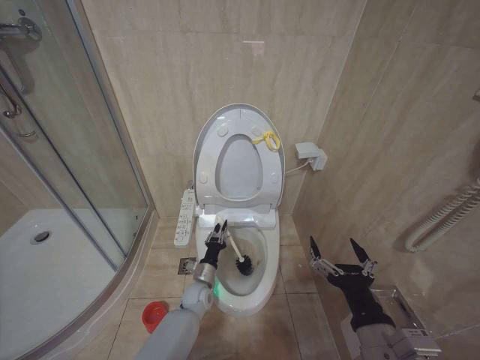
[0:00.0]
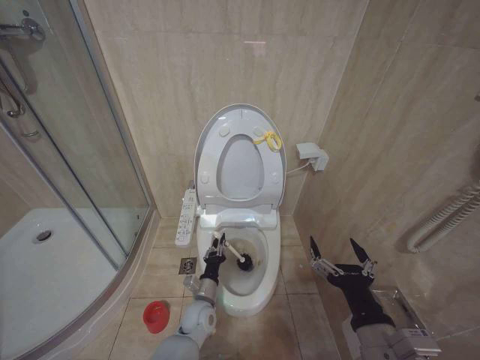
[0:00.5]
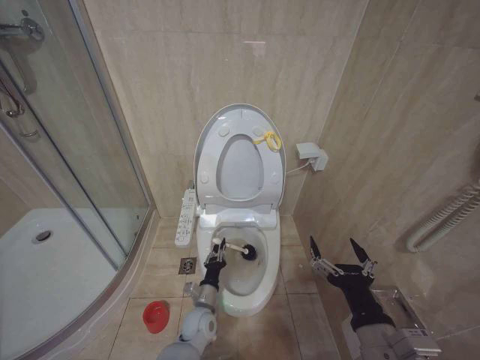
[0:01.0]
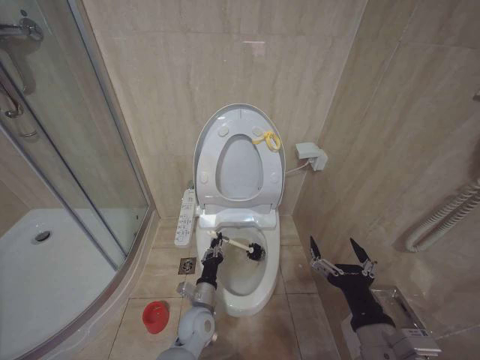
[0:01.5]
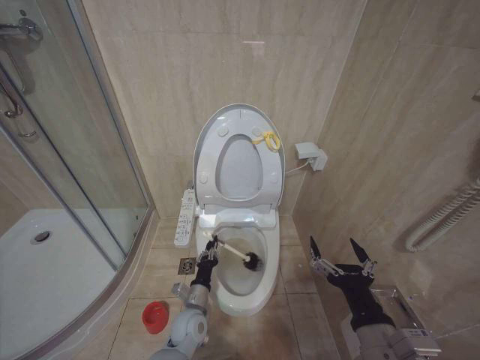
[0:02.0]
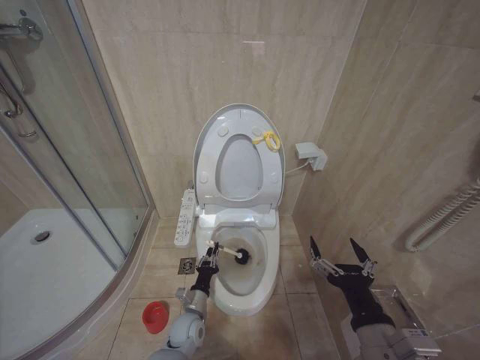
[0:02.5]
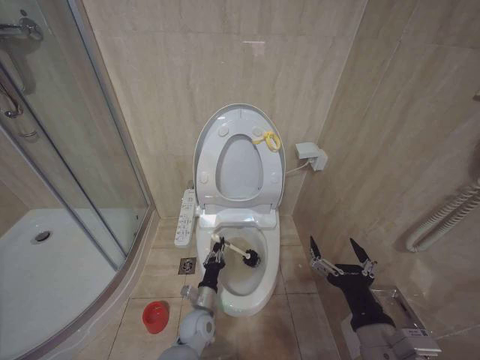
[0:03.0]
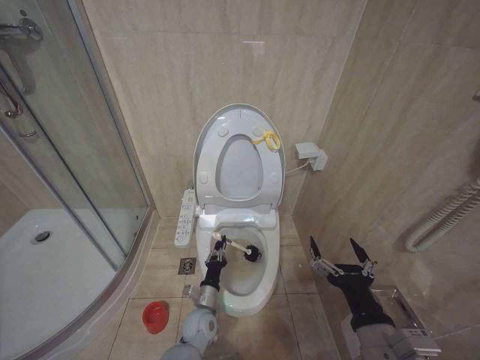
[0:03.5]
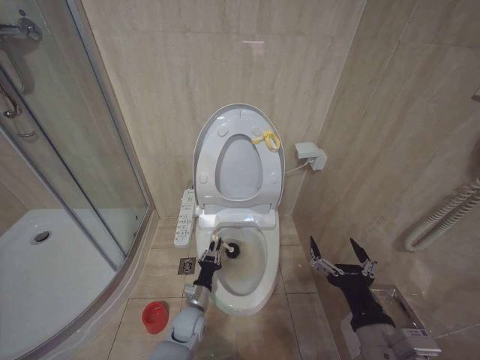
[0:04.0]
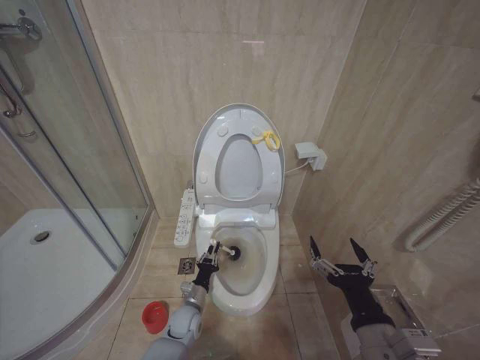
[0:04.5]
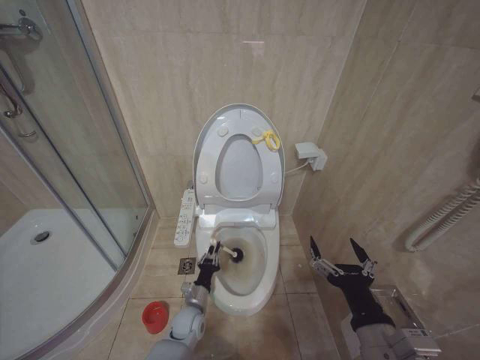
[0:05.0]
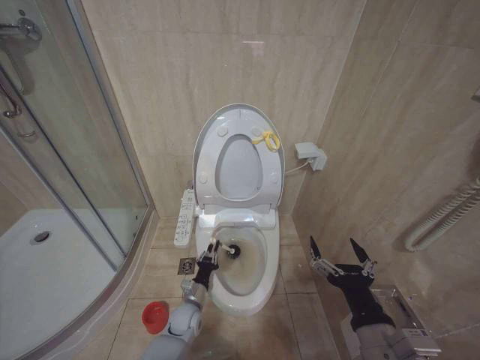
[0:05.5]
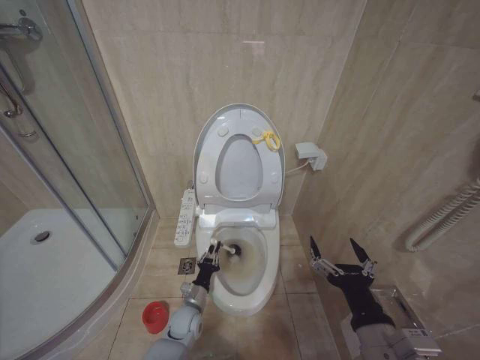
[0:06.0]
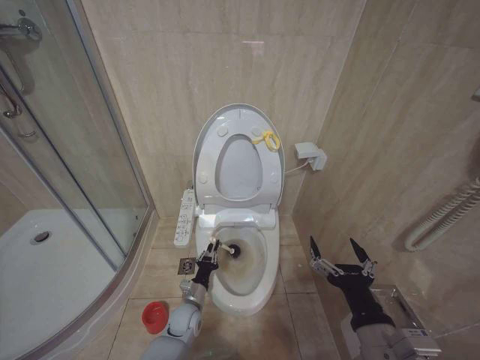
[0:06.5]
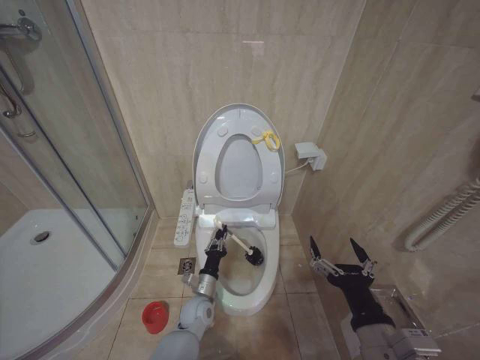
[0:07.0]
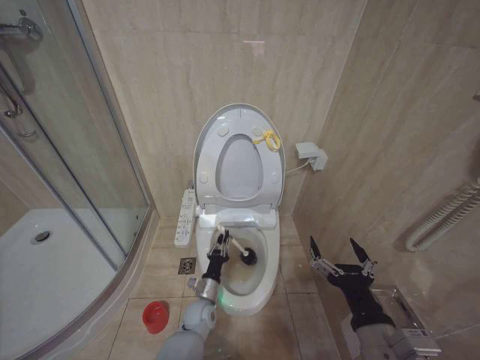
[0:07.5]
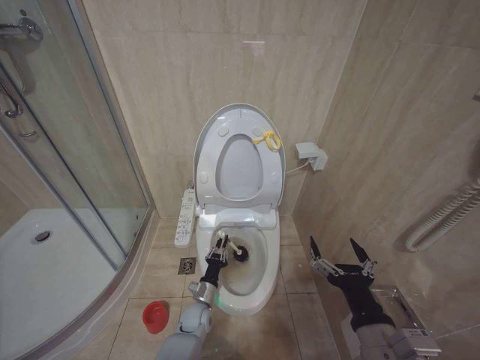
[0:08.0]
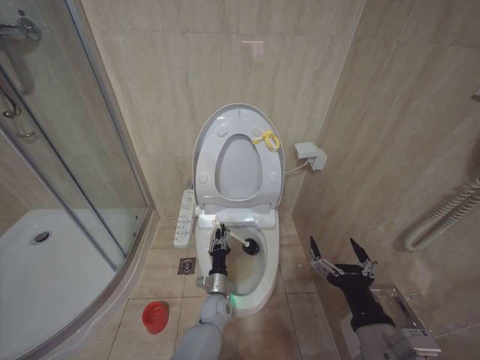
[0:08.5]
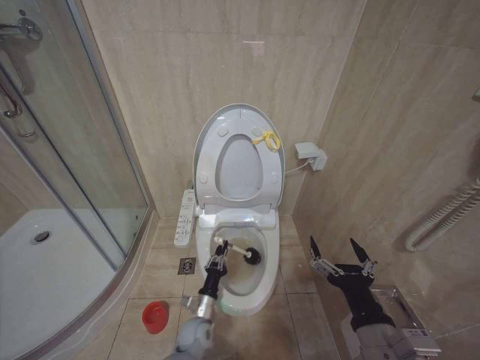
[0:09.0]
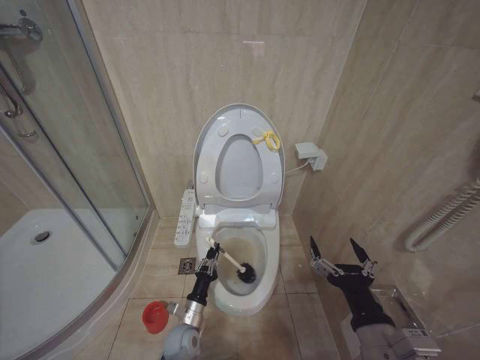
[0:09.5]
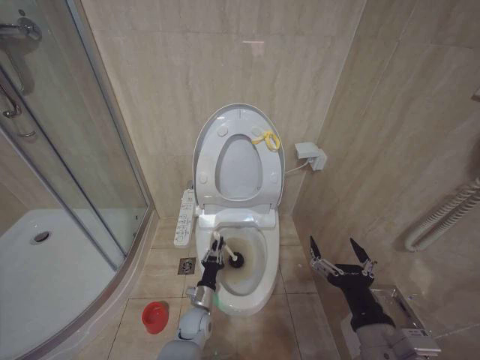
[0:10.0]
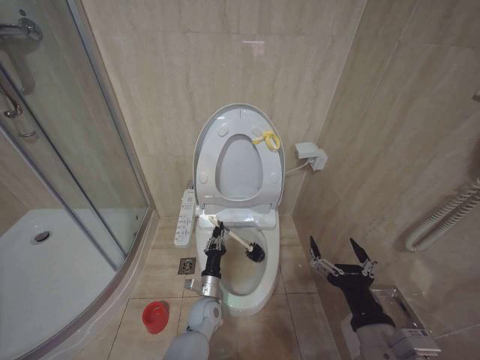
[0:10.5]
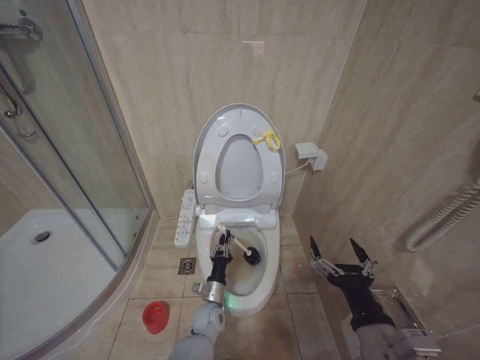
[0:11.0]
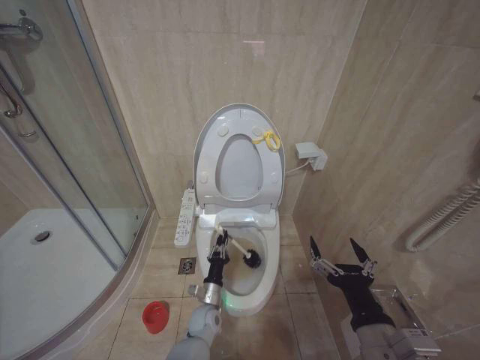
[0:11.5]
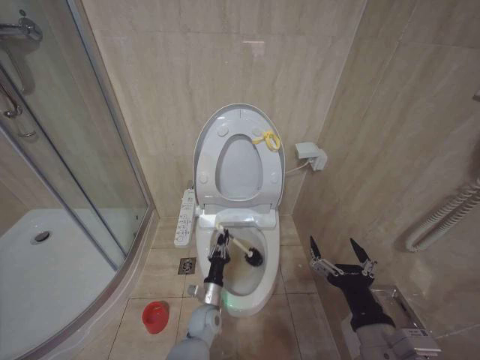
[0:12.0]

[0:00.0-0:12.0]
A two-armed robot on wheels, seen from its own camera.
Task of the whole recording: Open the toilet lid, clean the toilet bowl with a toilet brush, close the toilet lid, and flush.
0:00.0 to 0:02.0: The left gripper heads backward, covering approximately 10 cm.
0:08.0 to 0:10.0: The left gripper goes to the right and returns, approximately 5 cm each way.

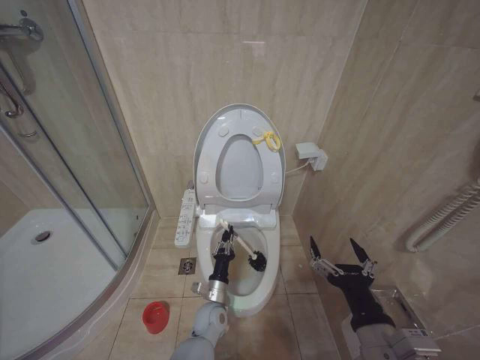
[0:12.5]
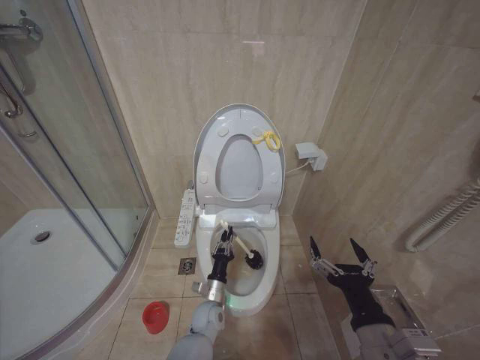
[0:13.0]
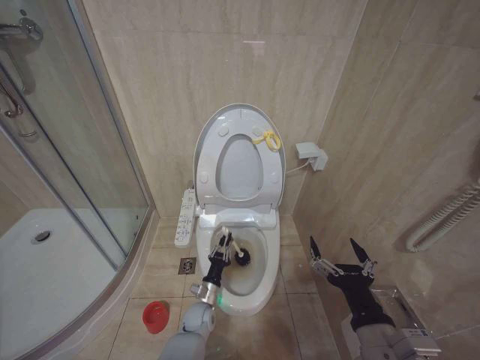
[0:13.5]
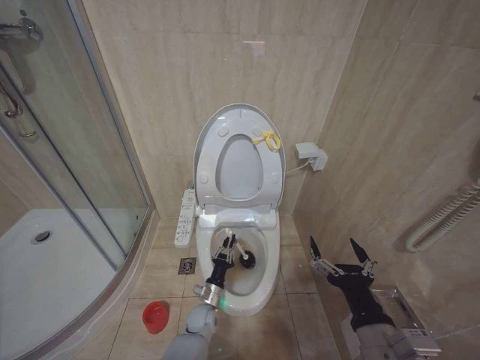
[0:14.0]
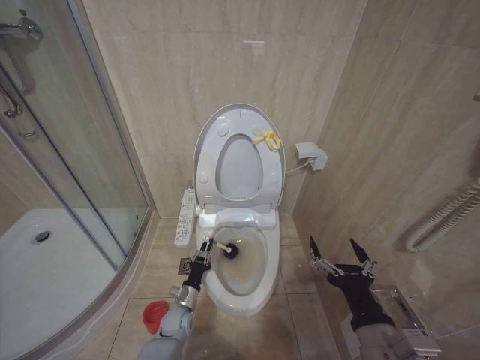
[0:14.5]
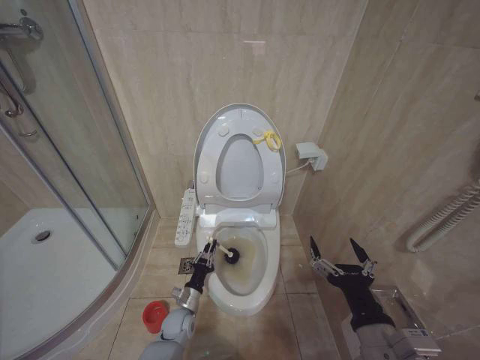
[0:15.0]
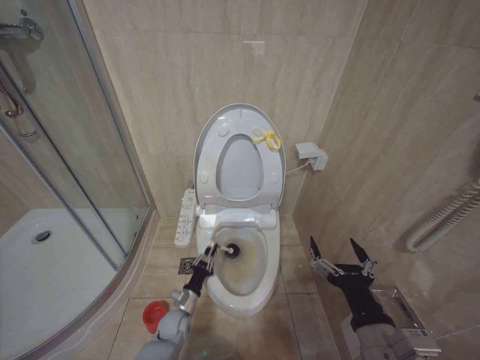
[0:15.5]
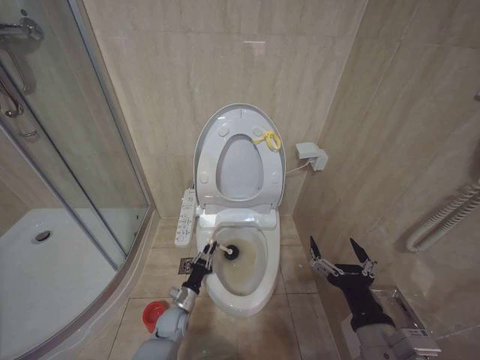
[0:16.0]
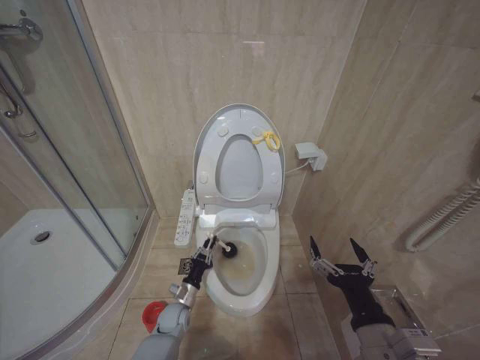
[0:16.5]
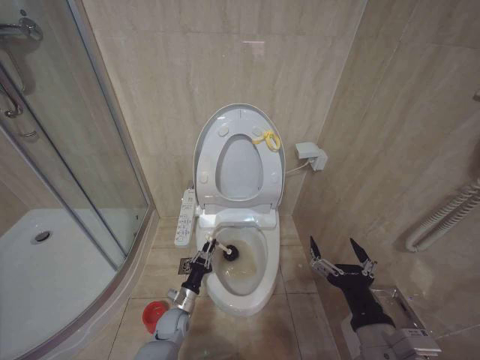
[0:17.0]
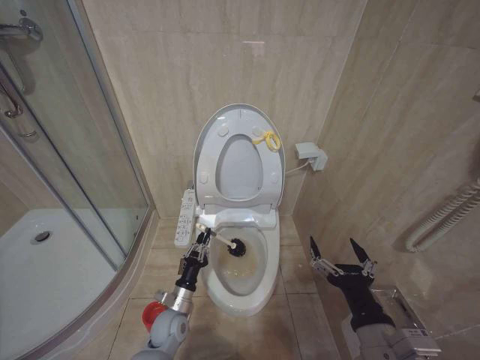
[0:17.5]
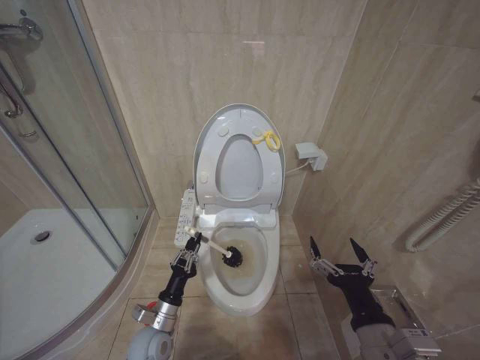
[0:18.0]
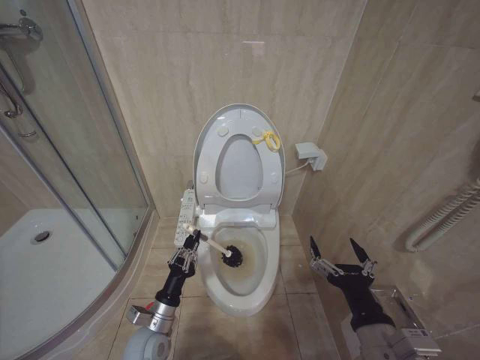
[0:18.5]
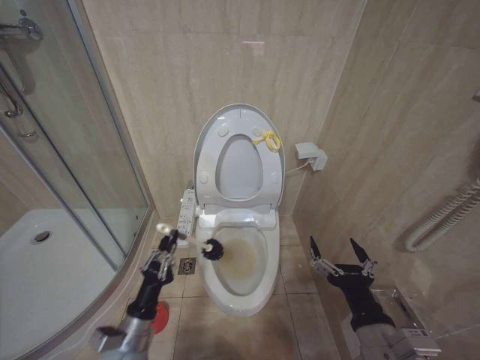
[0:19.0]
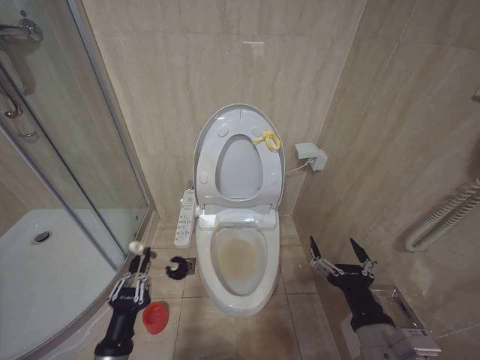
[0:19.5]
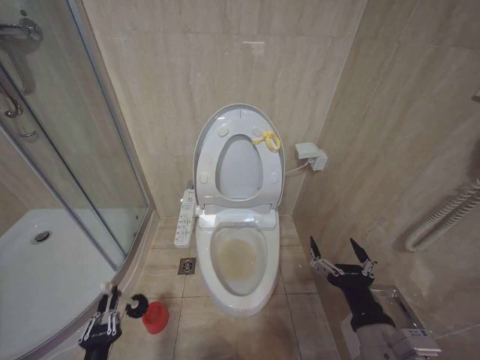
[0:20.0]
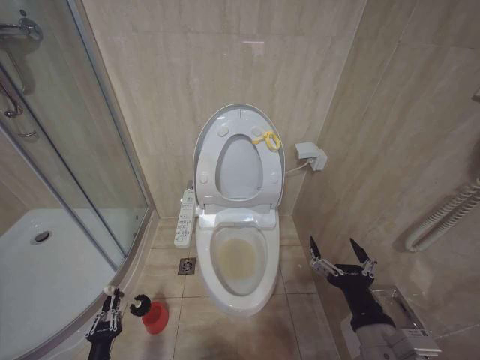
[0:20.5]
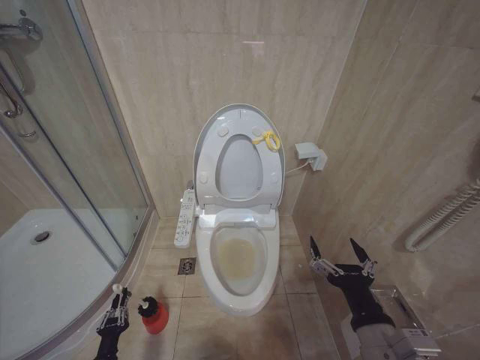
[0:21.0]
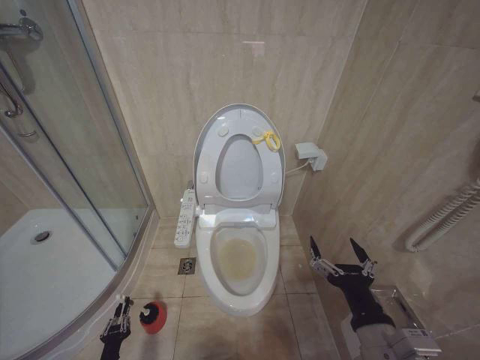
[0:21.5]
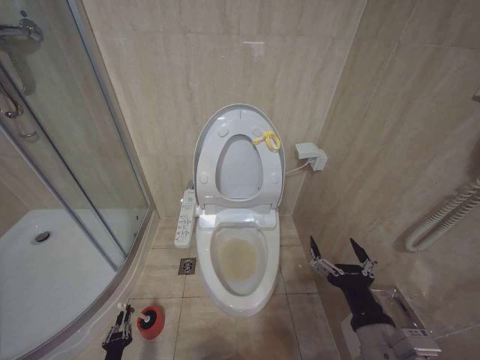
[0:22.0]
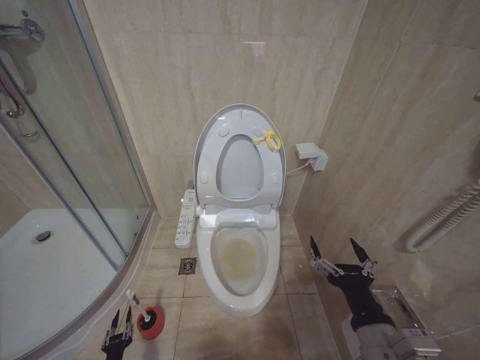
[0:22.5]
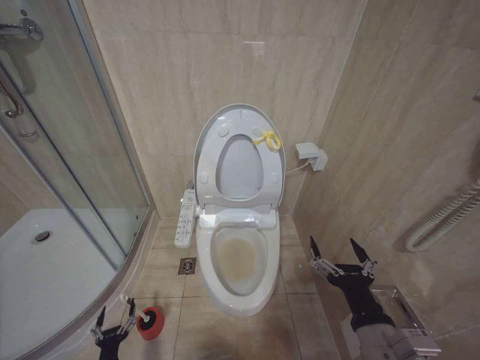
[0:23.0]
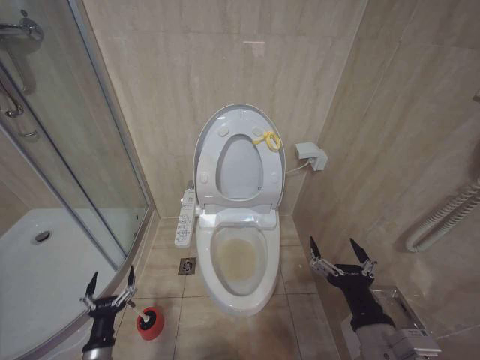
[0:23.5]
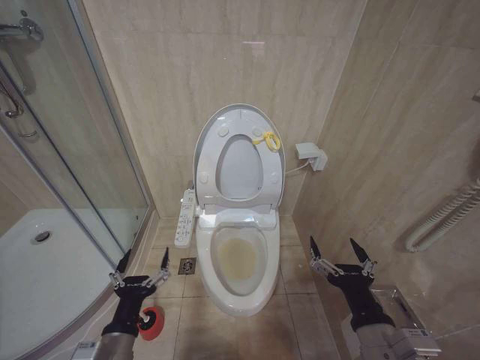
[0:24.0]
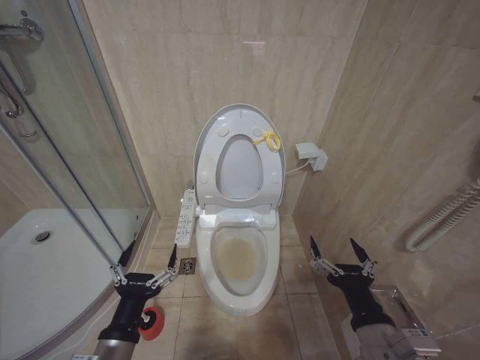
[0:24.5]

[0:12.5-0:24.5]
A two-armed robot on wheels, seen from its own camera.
Task of the whole recording: Open the toilet lid, clean the toilet bowl with a toilet brush, close the toilet lid, and flush.
0:12.5 to 0:14.5: The left gripper goes some 10 cm to the left and downward.
0:16.5 to 0:18.5: The left gripper moves upward and backward, some 15 cm.
0:18.5 to 0:20.5: The left gripper moves to the left, backward and downward, approximately 20 cm.
0:20.5 to 0:22.5: The left gripper moves downward, roughly 10 cm.
0:22.5 to 0:24.5: The left gripper shifts approximately 40 cm upward, and opens.

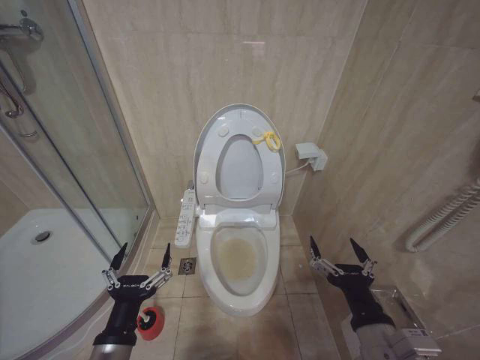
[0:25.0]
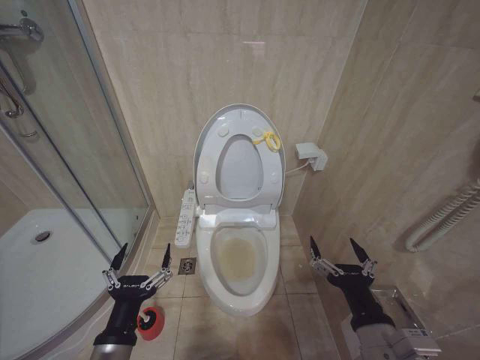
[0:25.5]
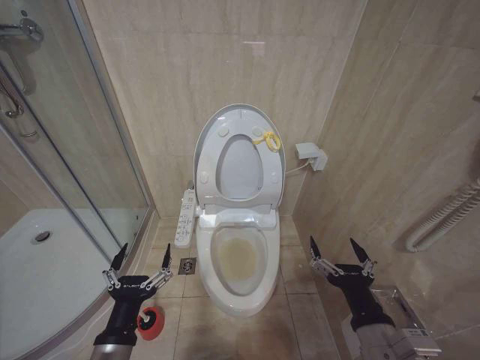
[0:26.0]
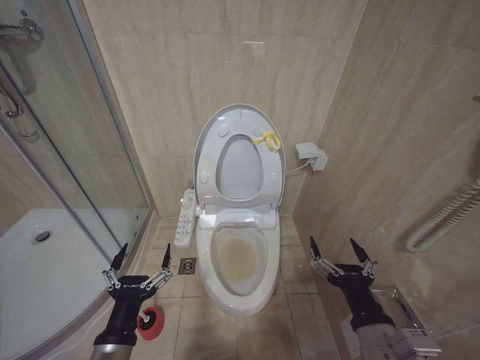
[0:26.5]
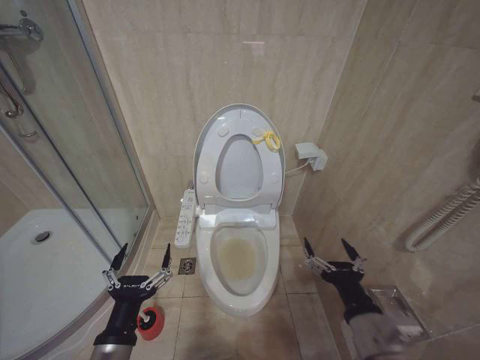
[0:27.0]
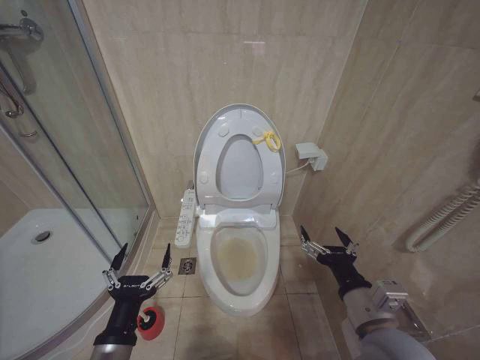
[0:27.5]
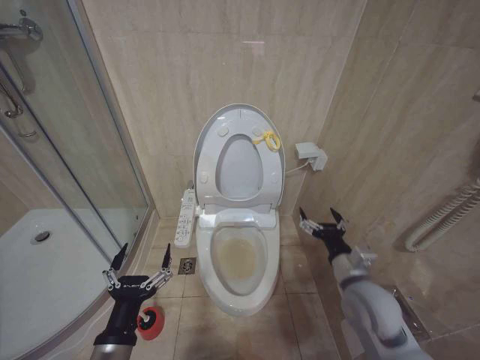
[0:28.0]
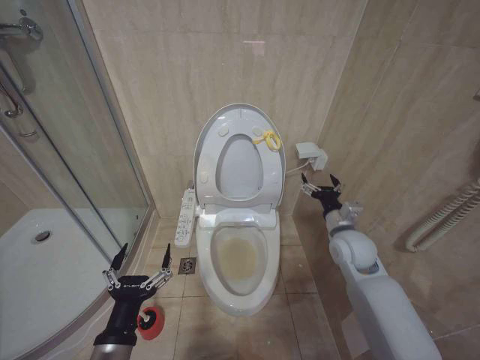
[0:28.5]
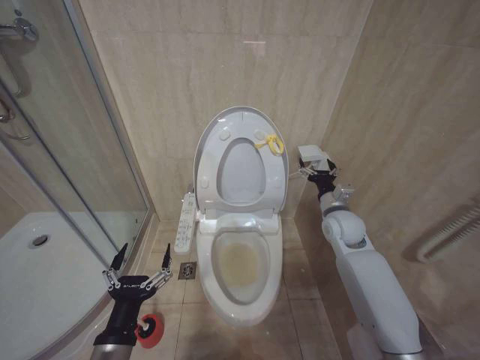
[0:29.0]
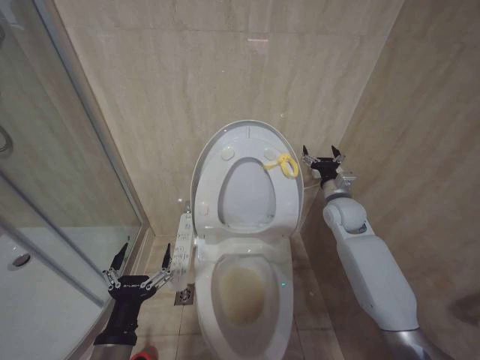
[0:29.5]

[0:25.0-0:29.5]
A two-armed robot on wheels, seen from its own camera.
Task of the whole recording: Open the toilet lid, clean the toilet bowl with a toilet brush, close the toilet lid, and flush.
0:25.0 to 0:27.0: The two grippers keep their place.
0:27.0 to 0:29.5: The right gripper moves forward, about 35 cm.
